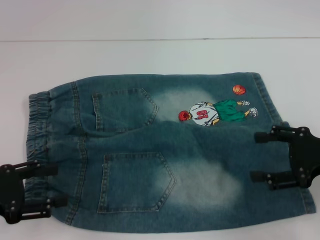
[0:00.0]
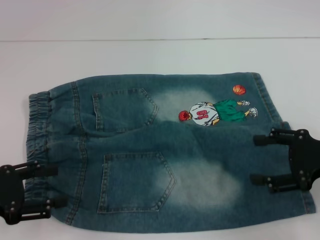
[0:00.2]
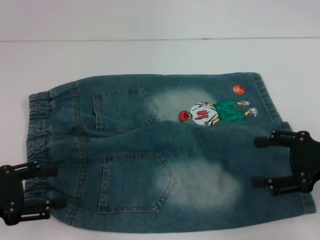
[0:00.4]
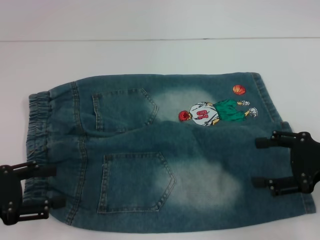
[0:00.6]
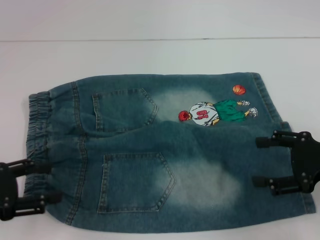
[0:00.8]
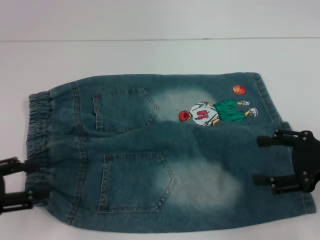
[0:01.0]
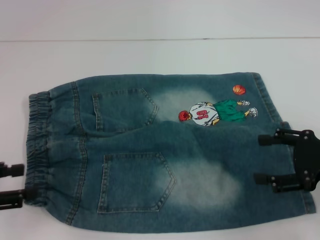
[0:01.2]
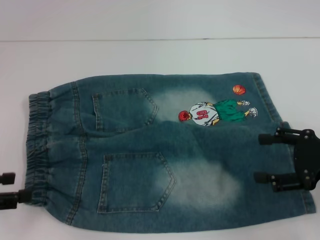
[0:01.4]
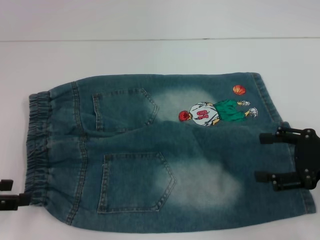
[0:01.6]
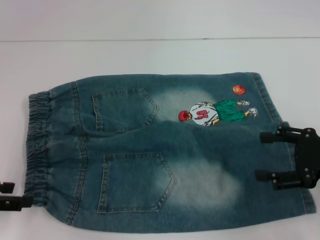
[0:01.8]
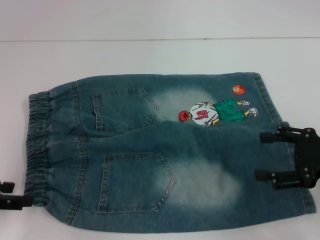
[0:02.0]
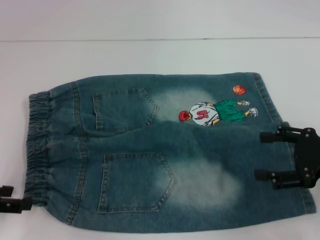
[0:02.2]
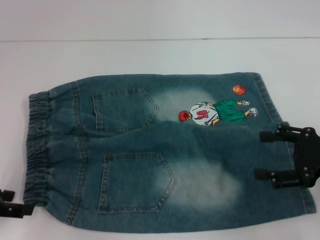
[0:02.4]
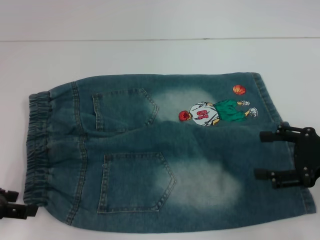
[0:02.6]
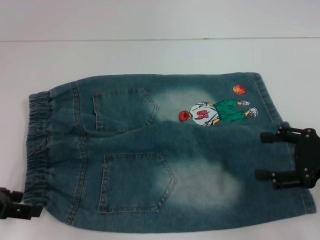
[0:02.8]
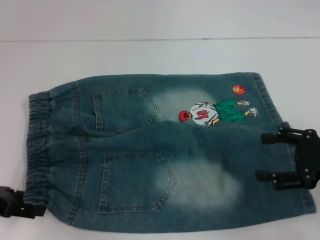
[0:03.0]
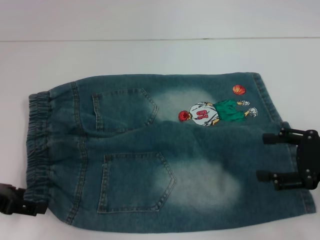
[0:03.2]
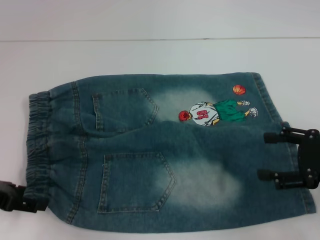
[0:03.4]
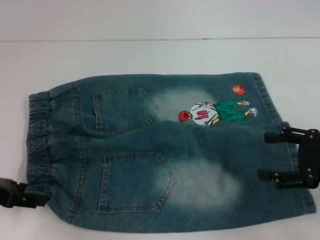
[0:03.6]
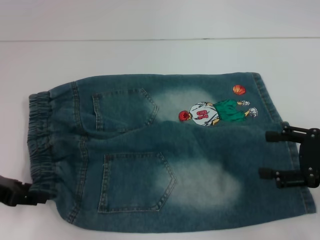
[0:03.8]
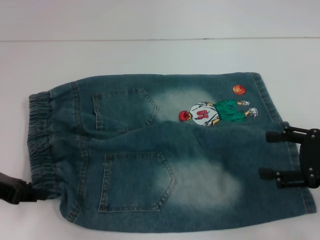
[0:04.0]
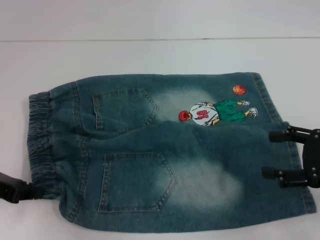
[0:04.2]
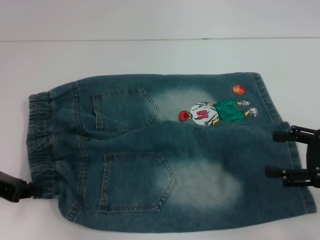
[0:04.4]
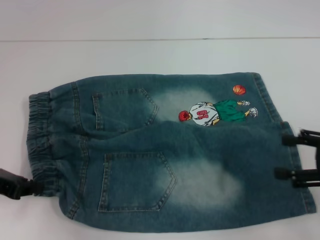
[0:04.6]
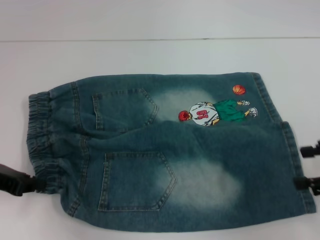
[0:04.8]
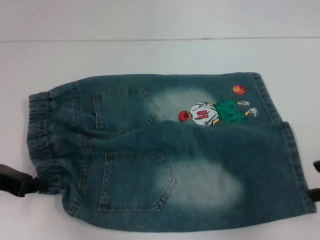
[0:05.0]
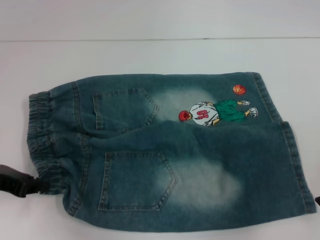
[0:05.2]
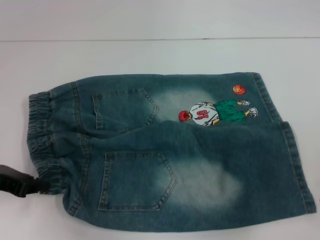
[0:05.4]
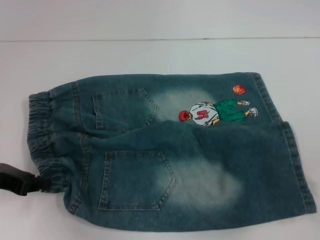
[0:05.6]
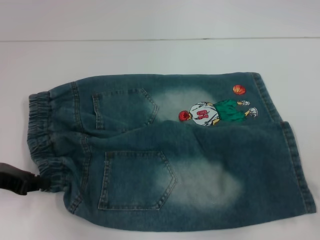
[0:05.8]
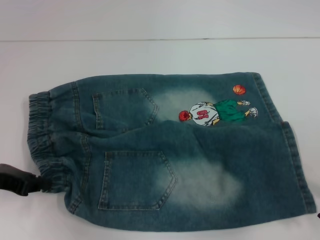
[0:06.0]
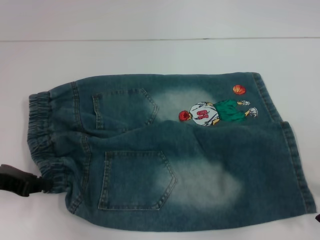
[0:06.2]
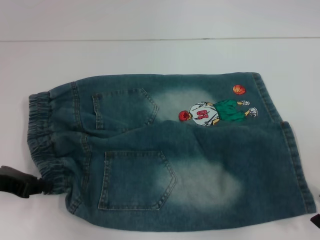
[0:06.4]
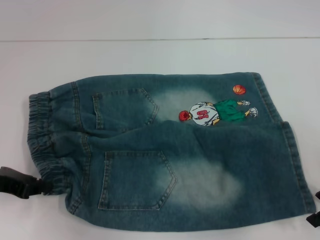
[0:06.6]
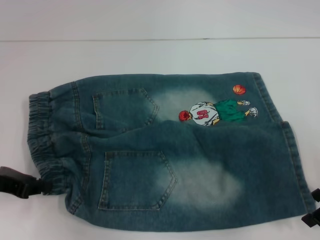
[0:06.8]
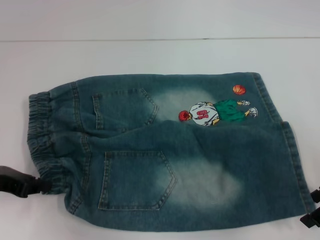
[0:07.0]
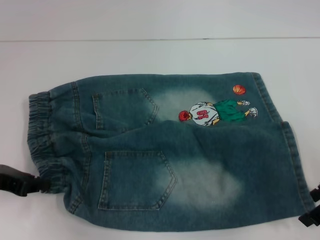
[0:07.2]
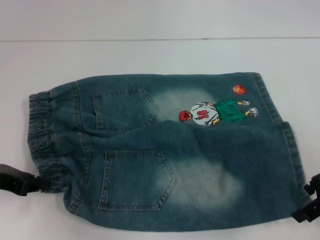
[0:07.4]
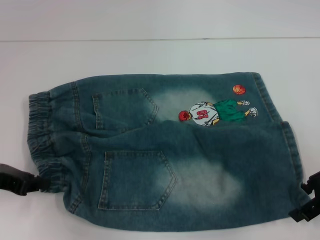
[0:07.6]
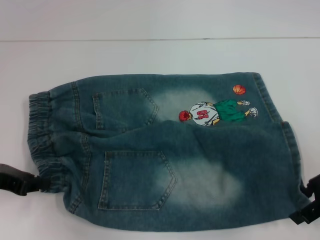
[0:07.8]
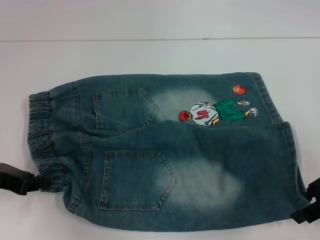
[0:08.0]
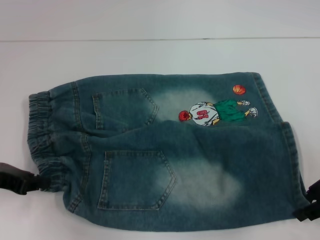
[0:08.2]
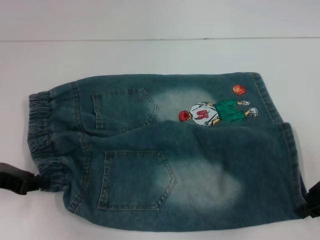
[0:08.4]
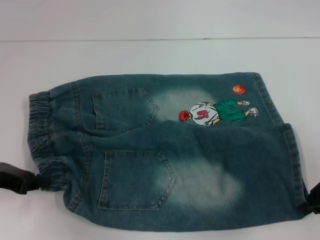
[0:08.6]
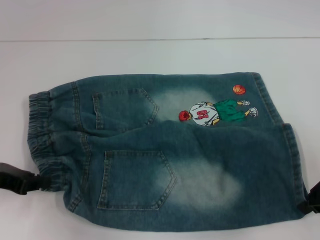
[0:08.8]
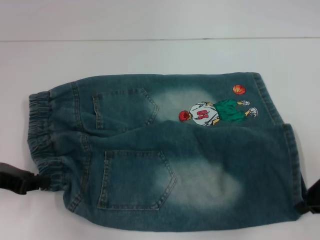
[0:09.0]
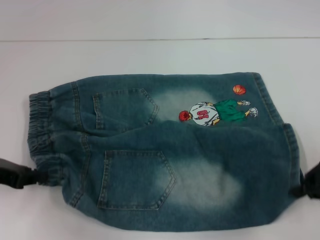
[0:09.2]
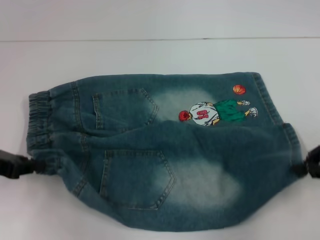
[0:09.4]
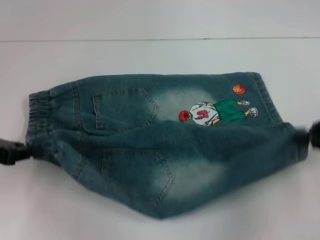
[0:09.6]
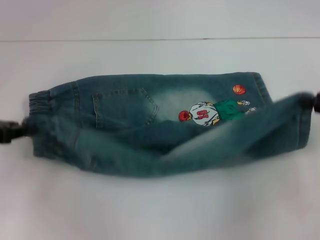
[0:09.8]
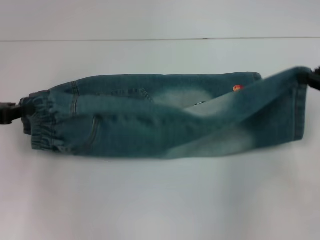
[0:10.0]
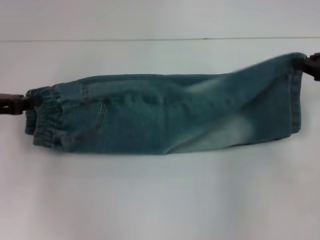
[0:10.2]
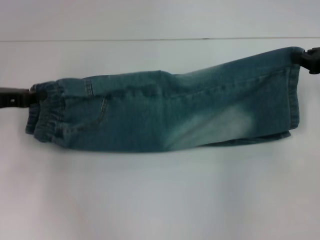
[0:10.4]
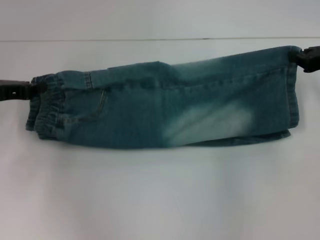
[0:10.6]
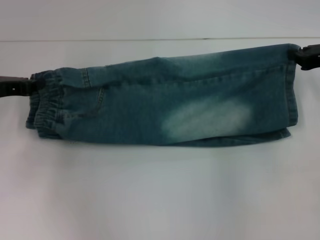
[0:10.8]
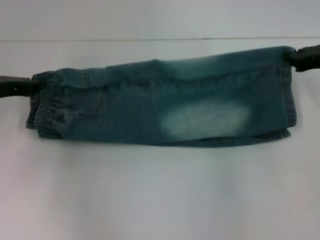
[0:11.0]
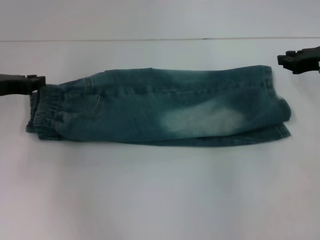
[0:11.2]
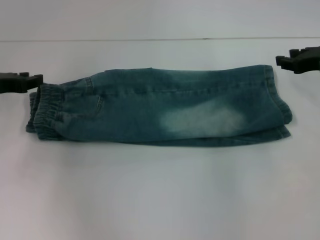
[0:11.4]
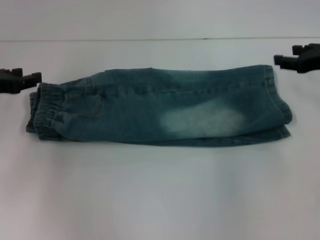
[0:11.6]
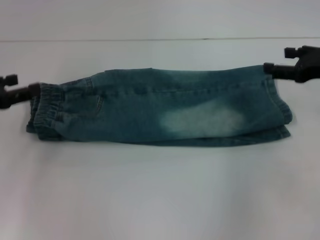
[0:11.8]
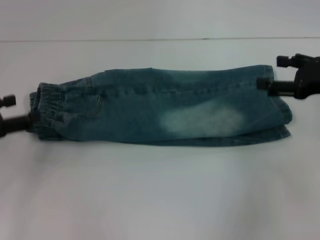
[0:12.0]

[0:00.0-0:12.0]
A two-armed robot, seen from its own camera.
Step, 0:00.0 to 0:04.4: Hold the lower left waistband with your left hand.
Step, 0:04.6 to 0:09.6: Grab the lower right pant leg with your right hand.
Step, 0:10.0 to 0:11.8: Fold upward with your left hand.
0:01.6 to 0:03.0: There are only small adjustments of the grippers.
0:03.0 to 0:04.4: The left gripper closes its fingers.
0:04.4 to 0:06.0: The right gripper changes place by roughly 5 cm.
0:06.0 to 0:07.6: The grippers make only small movements.
0:07.6 to 0:09.0: The right gripper closes its fingers.
0:09.0 to 0:10.4: Both grippers travel together forward, some 5 cm.
0:10.4 to 0:12.0: The left gripper heads backward, covering roughly 5 cm, and opens up. The right gripper opens.

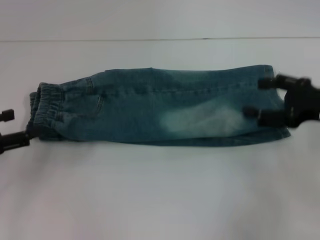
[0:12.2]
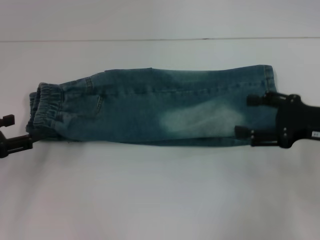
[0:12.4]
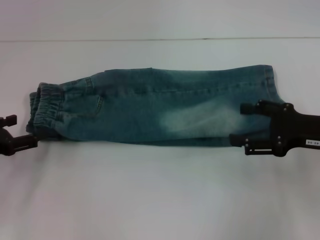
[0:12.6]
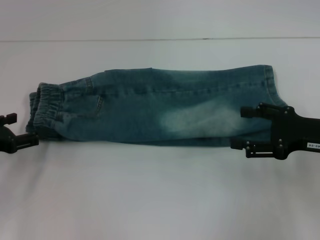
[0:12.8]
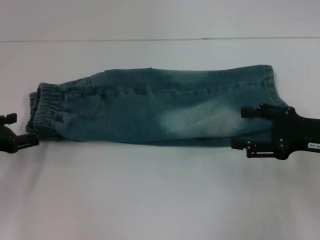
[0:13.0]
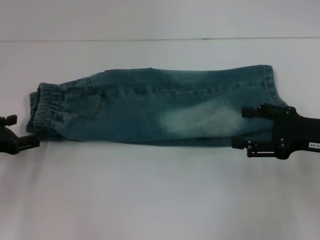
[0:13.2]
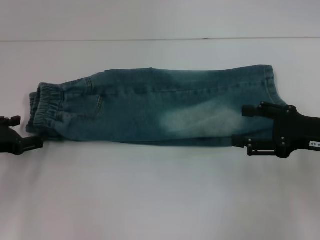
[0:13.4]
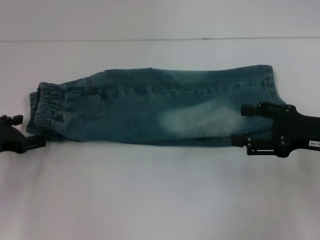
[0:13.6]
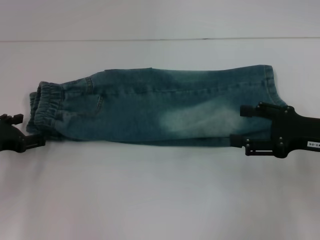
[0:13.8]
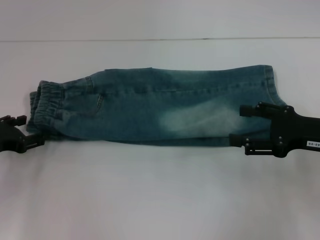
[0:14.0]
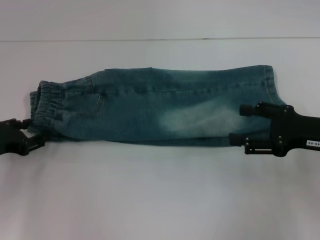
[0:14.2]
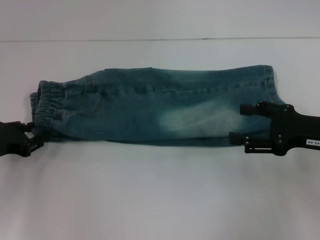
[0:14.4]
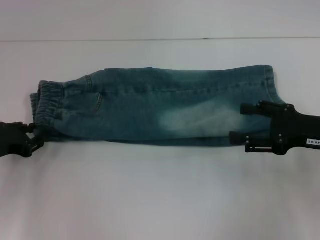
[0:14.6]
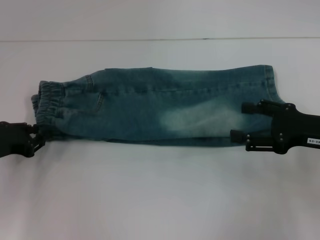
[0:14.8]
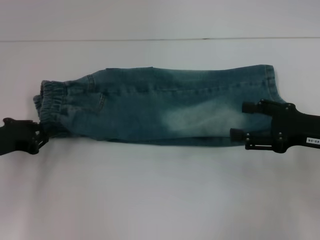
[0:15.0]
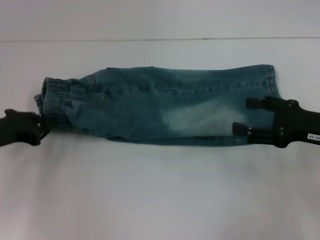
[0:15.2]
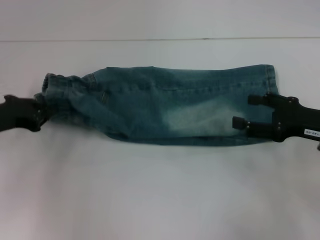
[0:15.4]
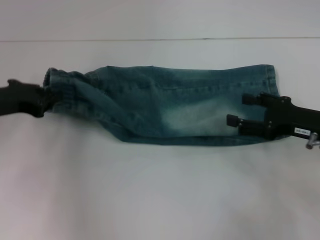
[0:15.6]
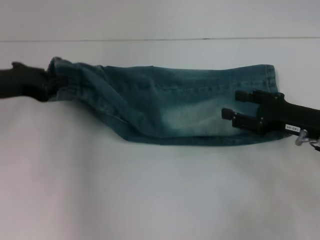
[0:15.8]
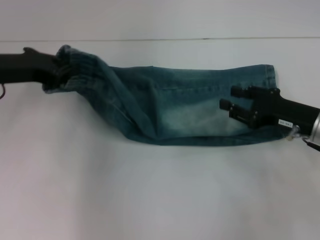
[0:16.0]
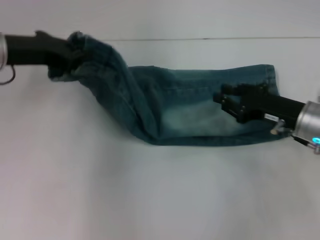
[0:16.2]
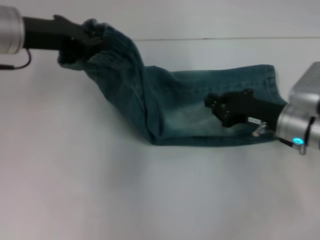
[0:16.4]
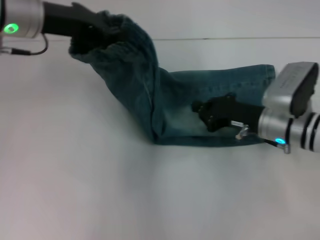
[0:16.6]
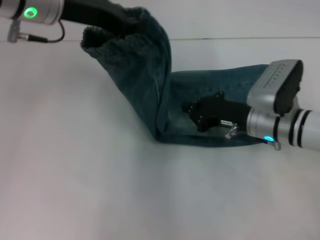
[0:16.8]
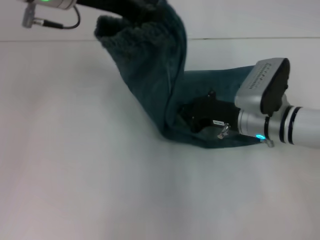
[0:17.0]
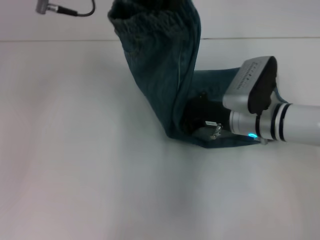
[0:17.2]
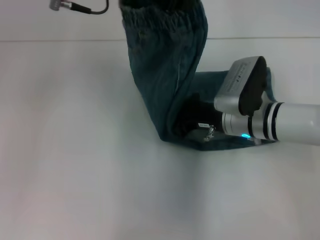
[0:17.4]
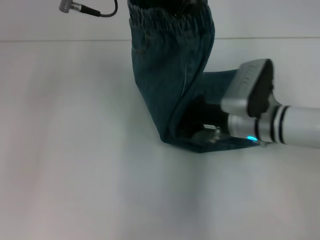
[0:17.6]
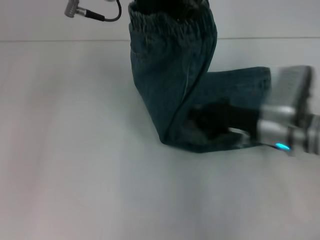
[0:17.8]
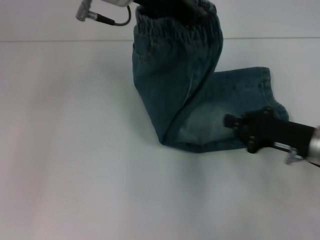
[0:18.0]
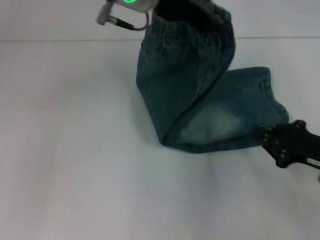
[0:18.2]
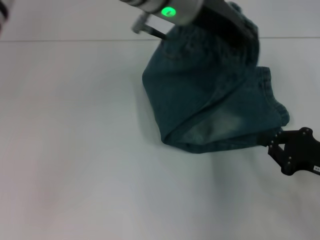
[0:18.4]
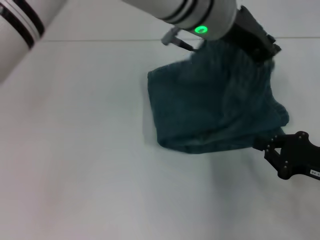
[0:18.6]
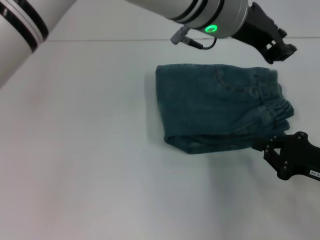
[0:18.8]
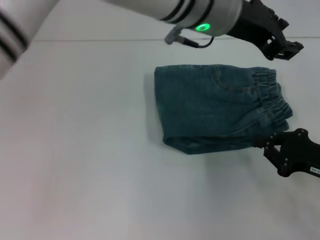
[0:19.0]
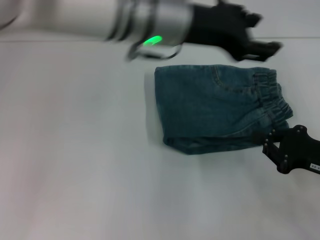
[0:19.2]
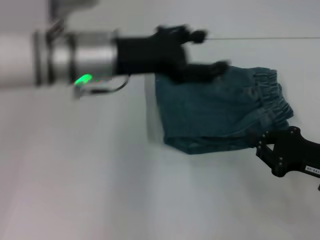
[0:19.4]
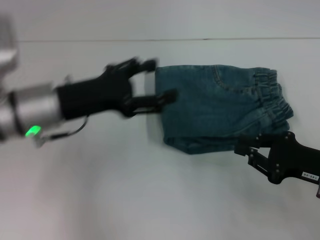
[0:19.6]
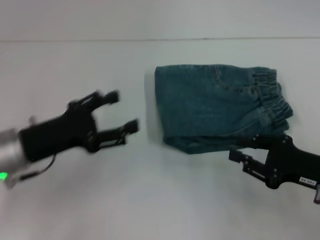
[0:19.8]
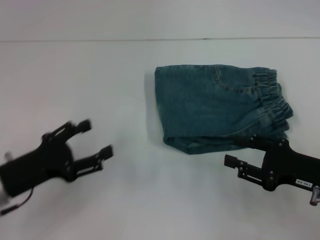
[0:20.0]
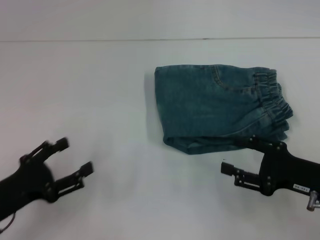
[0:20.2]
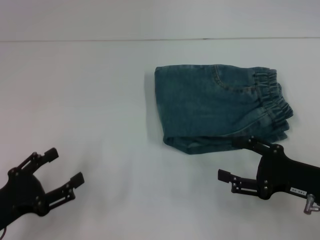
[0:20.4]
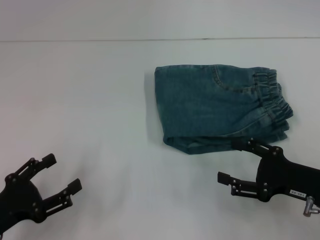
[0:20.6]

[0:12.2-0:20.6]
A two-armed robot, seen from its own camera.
Step, 0:12.2 to 0:13.2: Fold upward with your right hand.
Step, 0:13.6 to 0:14.4: Hold the waistband with your left hand.
Step, 0:14.8 to 0:17.6: Press the middle of the pants with your right hand.
Step, 0:17.8 to 0:19.2: Fold to the right with your left hand.
0:12.2 to 0:13.6: The left gripper changes place by about 5 cm.
0:13.6 to 0:15.0: The left gripper closes its fingers.
0:15.0 to 0:16.4: The left gripper goes some 20 cm upward, to the right and forward; the right gripper is displaced to the left and forward by approximately 10 cm, and closes.
0:16.4 to 0:17.8: The left gripper heads to the right and upward, covering some 15 cm.
0:17.8 to 0:19.2: The right gripper goes roughly 15 cm to the right and backward, while the left gripper travels to the right by some 5 cm, and opens its fingers.
0:19.2 to 0:20.6: The left gripper travels to the left, downward and backward by roughly 40 cm, and opens its fingers; the right gripper opens up.

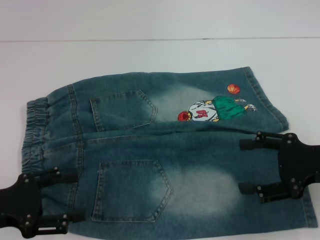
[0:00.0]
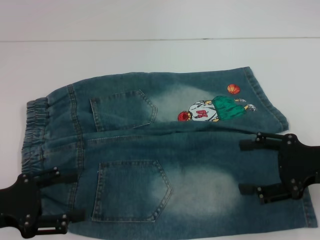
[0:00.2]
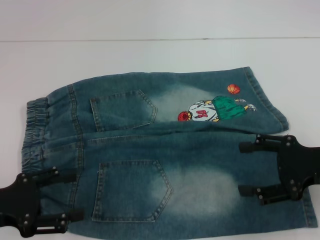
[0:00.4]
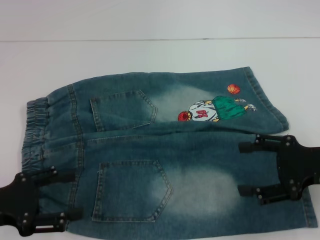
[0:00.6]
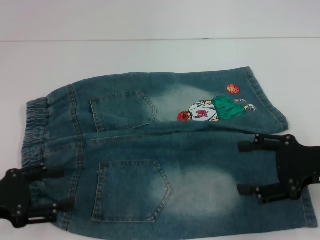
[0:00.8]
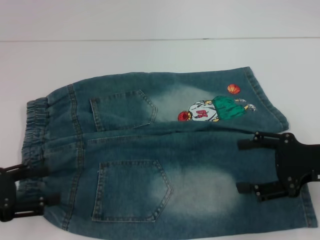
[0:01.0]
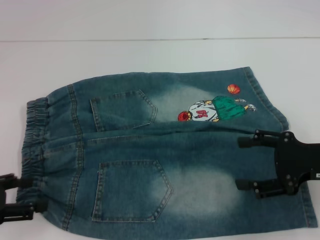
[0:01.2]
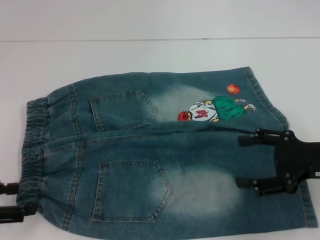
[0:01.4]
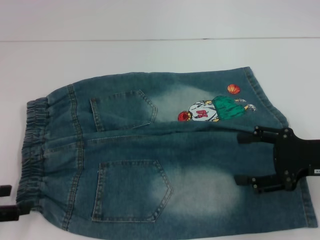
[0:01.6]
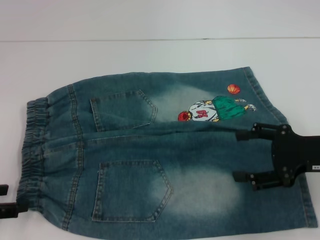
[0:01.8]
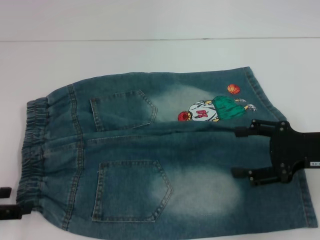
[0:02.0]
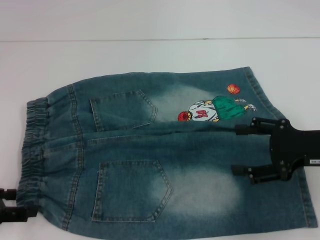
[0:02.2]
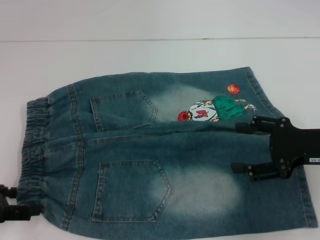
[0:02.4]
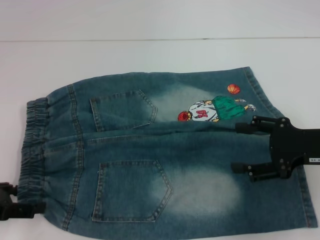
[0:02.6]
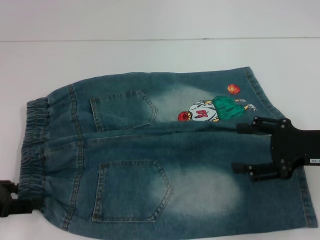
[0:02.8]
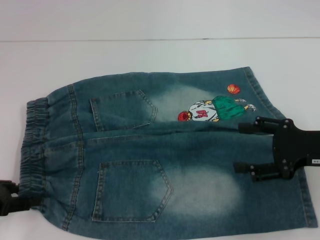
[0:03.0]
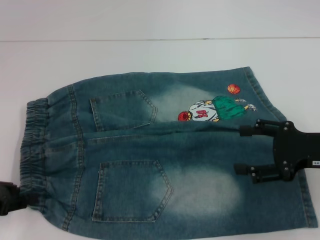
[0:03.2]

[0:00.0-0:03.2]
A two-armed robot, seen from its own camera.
0:00.0 to 0:01.6: The left gripper goes some 5 cm to the left.
0:01.6 to 0:03.2: The left gripper closes up.
